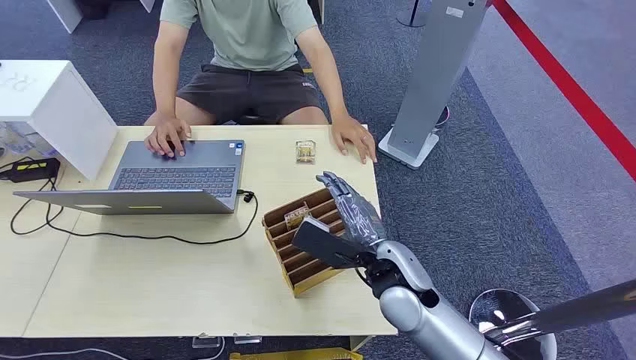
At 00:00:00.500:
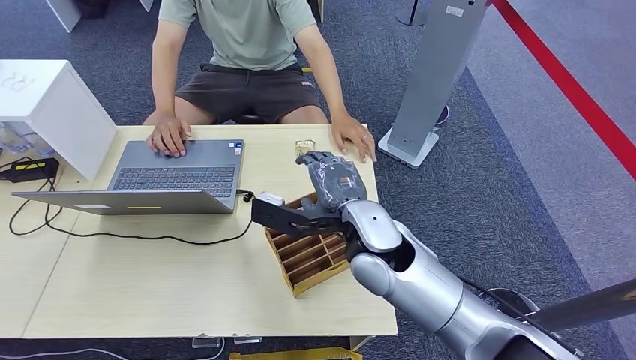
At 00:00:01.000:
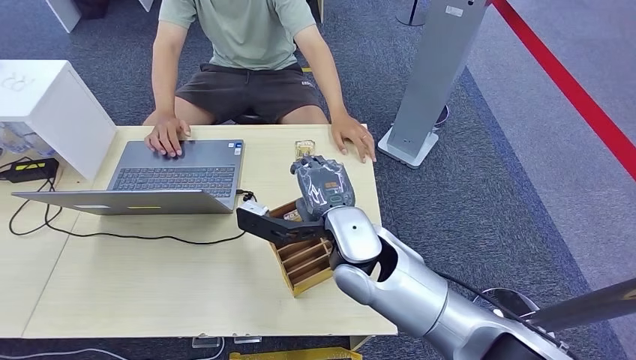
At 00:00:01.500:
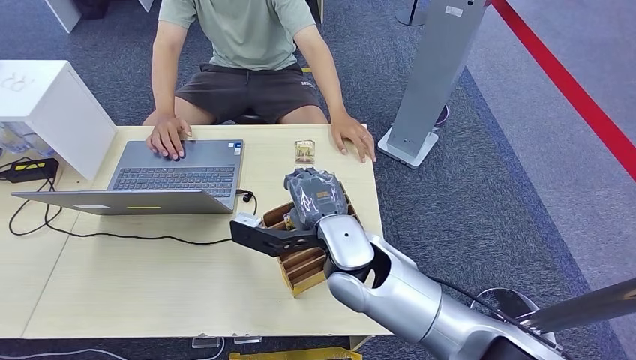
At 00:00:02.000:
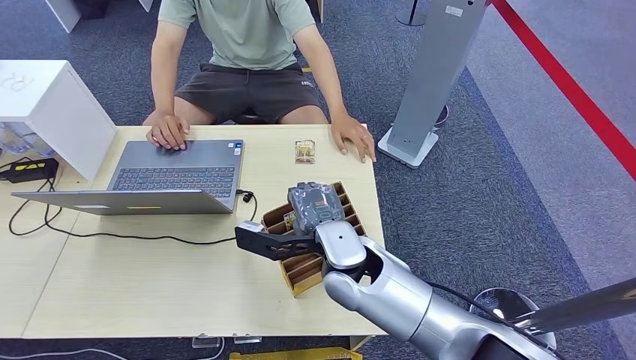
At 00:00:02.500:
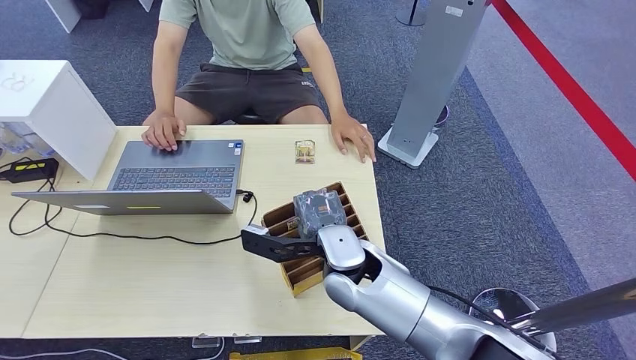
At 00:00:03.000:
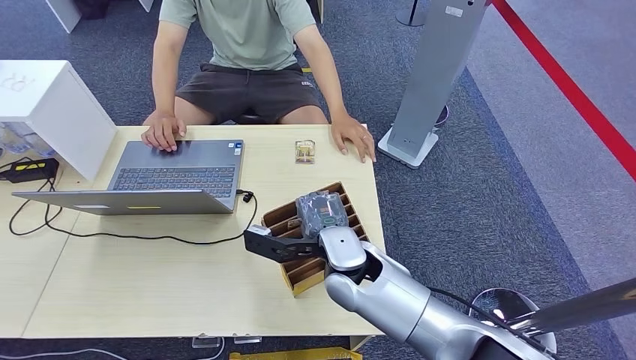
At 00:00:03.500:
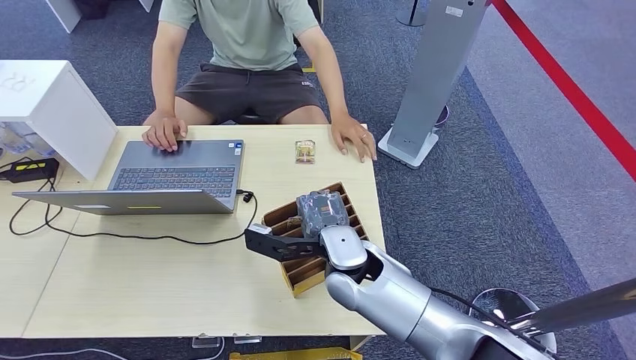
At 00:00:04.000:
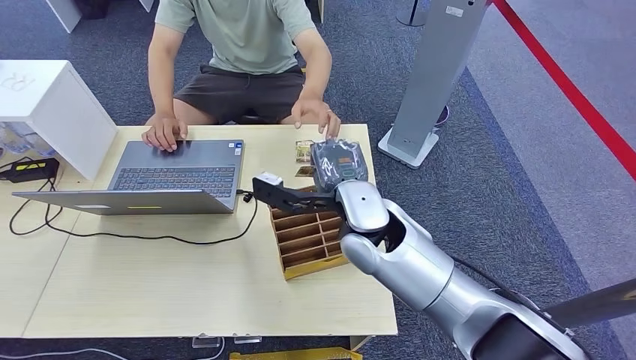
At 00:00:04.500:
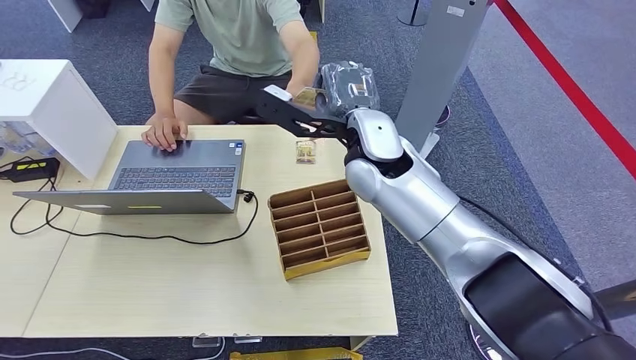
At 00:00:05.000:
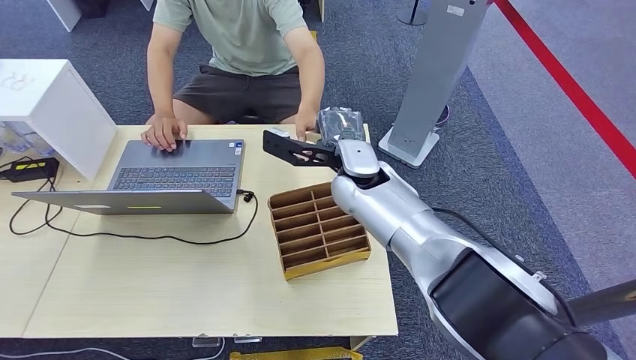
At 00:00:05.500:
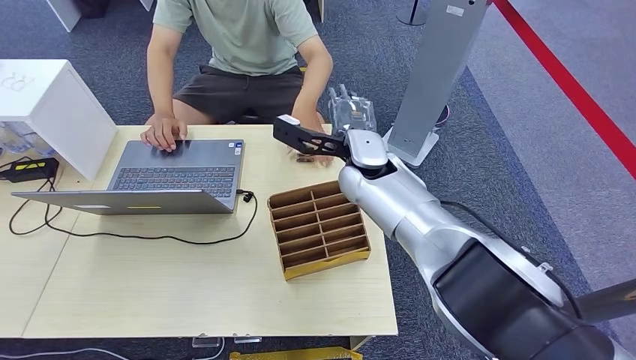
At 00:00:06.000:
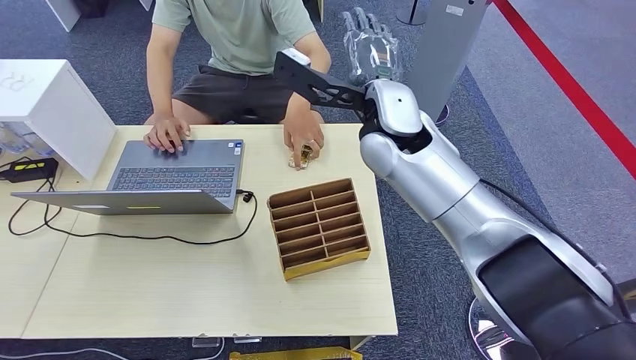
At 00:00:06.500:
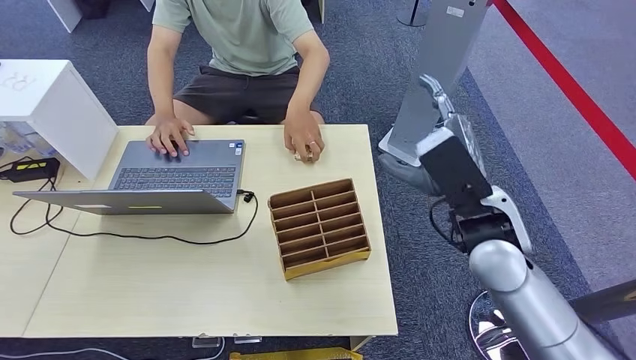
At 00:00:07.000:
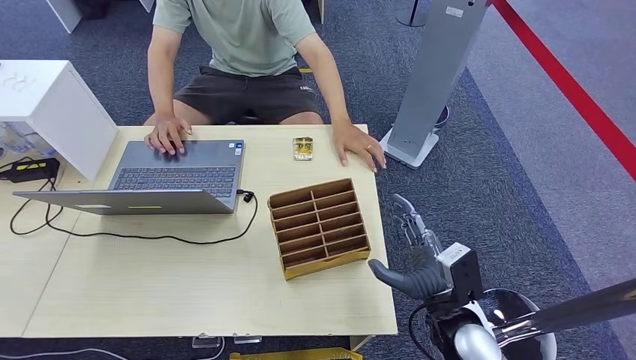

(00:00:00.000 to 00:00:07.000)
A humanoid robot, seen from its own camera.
Step, 00:00:00.000 - 00:00:03.500: Pick up the room card from the card holder.
Step, 00:00:04.000 - 00:00:07.000: Hand the room card to the target.
00:00:02.000 - 00:00:03.500: The hands make only small movements.
00:00:03.500 - 00:00:05.000: The right hand shifts approximately 15 cm forward and upward.
00:00:05.000 - 00:00:07.000: The right hand is displaced backward, to the right and downward by about 30 cm.

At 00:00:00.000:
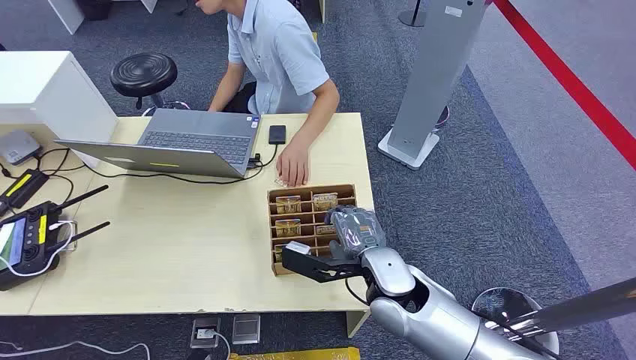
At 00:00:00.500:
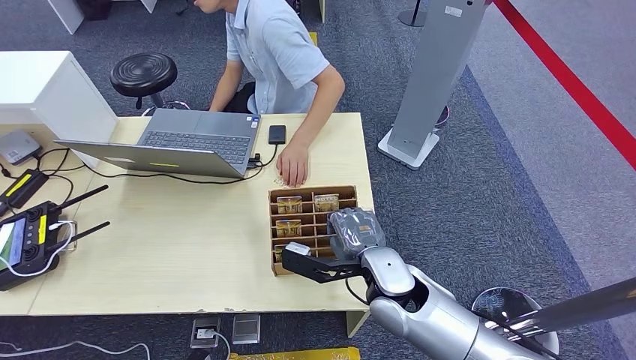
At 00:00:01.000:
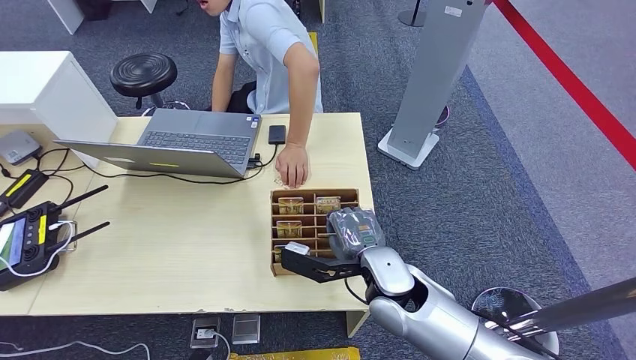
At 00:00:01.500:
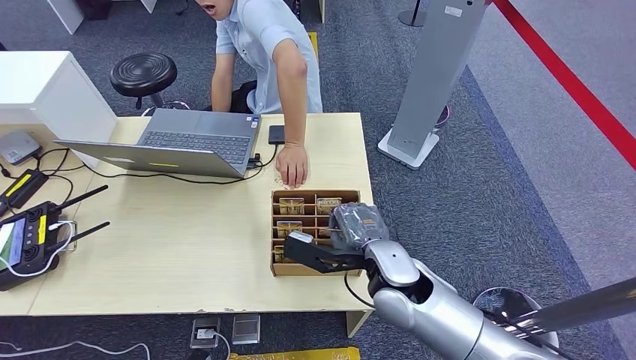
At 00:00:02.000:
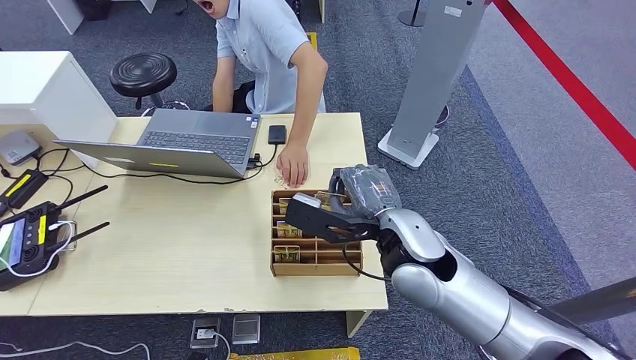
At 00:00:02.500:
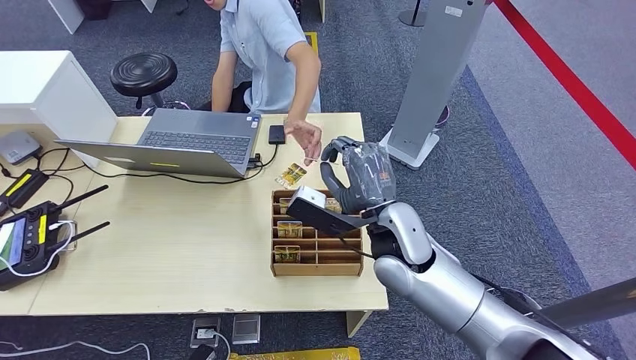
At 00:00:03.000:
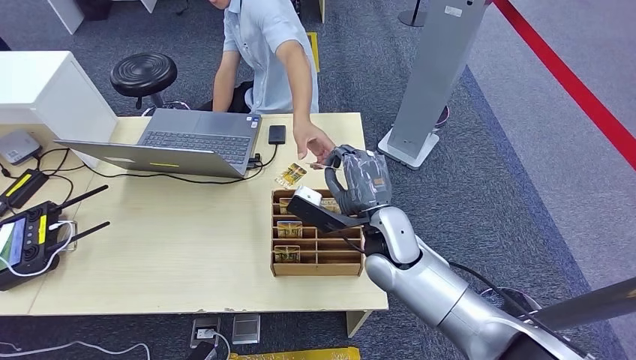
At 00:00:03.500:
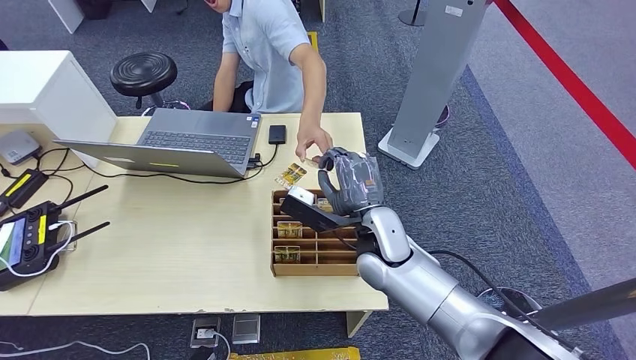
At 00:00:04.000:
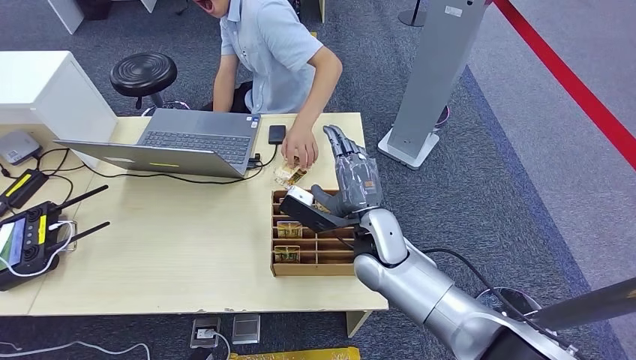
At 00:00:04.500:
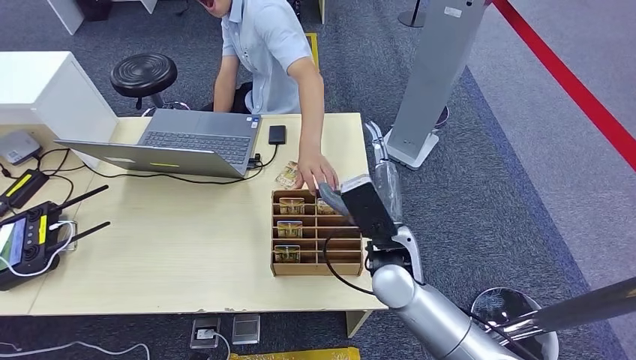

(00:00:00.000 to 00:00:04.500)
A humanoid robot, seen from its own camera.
Step, 00:00:00.000 - 00:00:02.000: Pick up the room card from the card holder.
Step, 00:00:02.500 - 00:00:04.500: Hand the room card to the target.
00:00:02.000 - 00:00:04.500: The right hand heads downward, covering roughly 5 cm.
